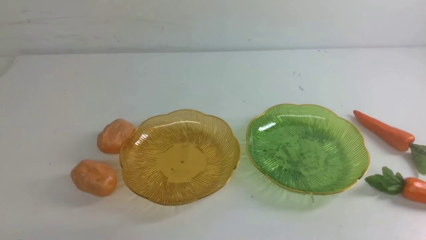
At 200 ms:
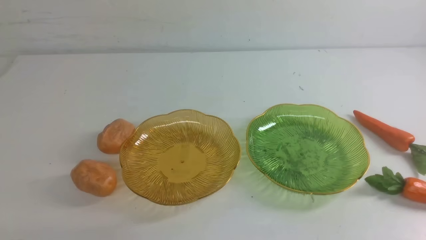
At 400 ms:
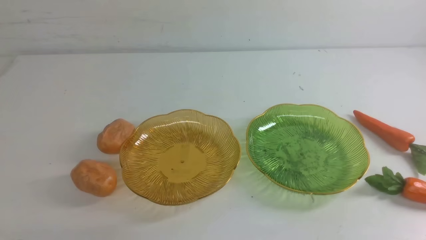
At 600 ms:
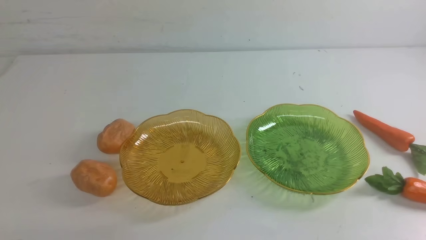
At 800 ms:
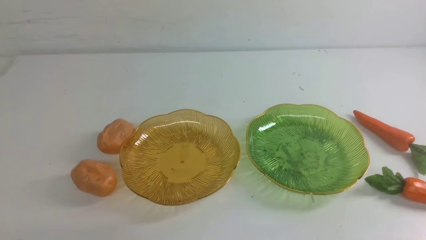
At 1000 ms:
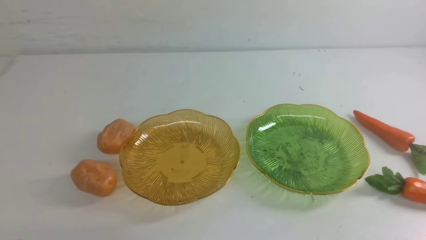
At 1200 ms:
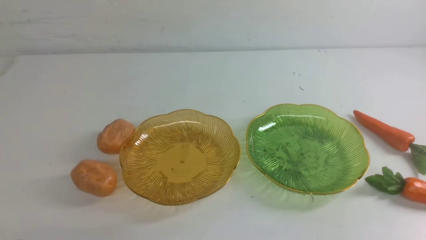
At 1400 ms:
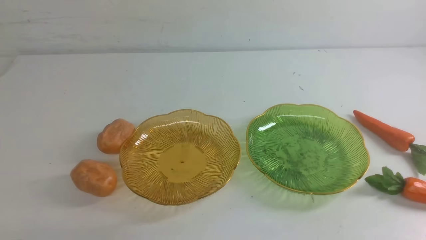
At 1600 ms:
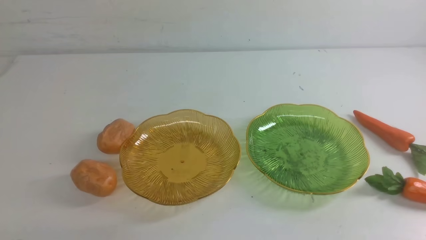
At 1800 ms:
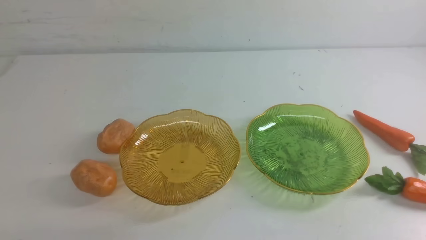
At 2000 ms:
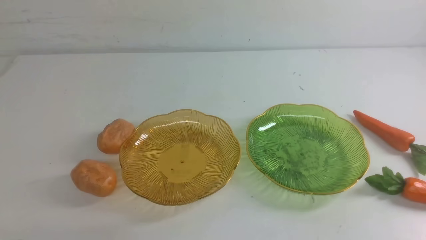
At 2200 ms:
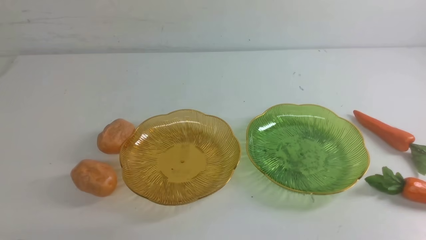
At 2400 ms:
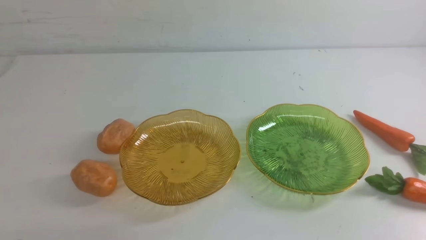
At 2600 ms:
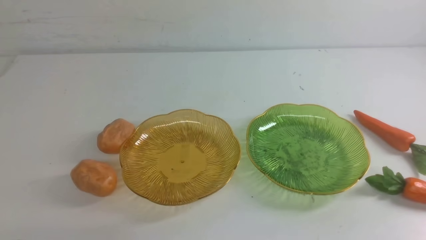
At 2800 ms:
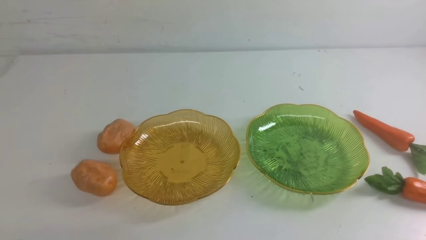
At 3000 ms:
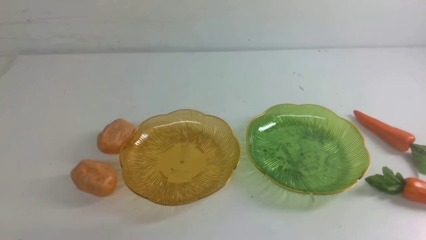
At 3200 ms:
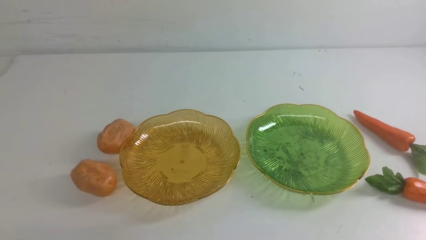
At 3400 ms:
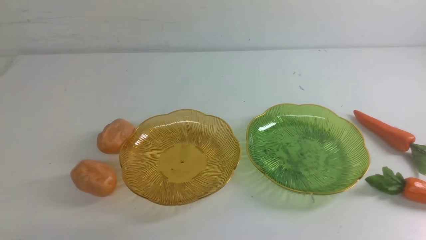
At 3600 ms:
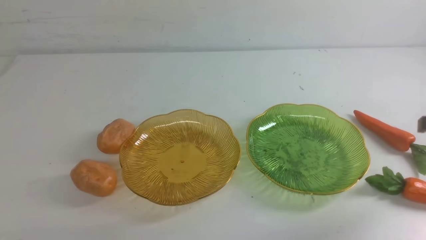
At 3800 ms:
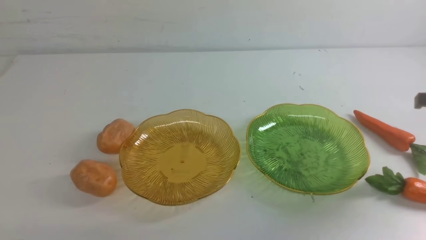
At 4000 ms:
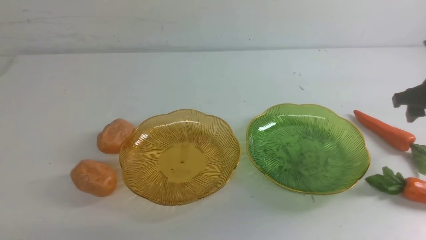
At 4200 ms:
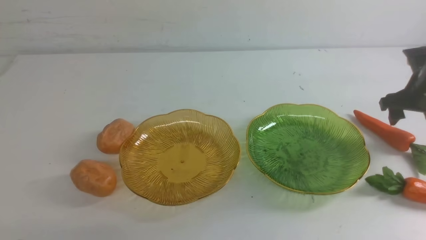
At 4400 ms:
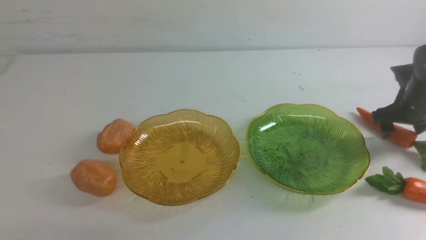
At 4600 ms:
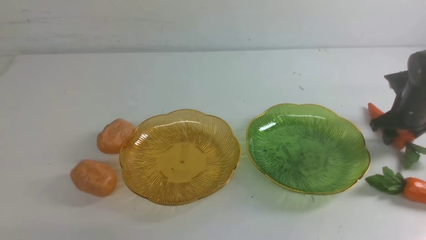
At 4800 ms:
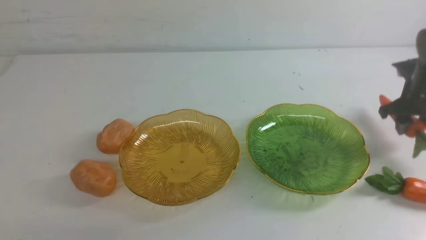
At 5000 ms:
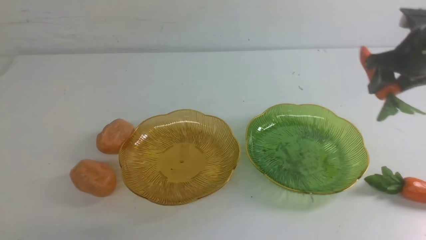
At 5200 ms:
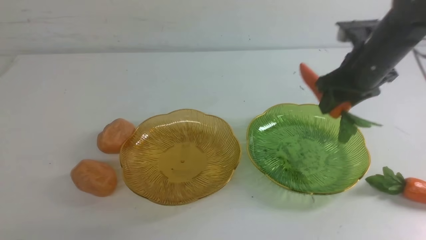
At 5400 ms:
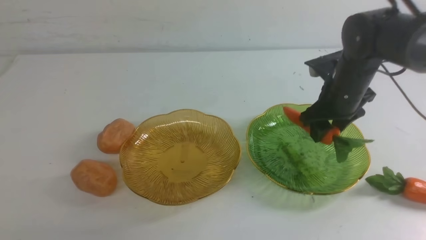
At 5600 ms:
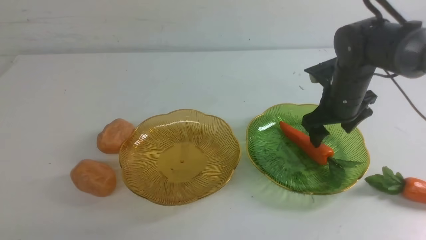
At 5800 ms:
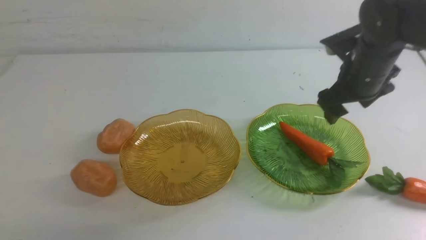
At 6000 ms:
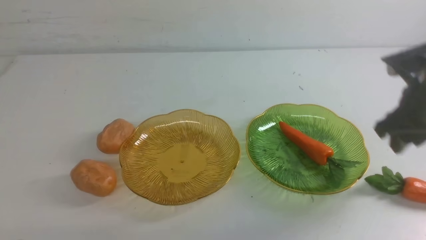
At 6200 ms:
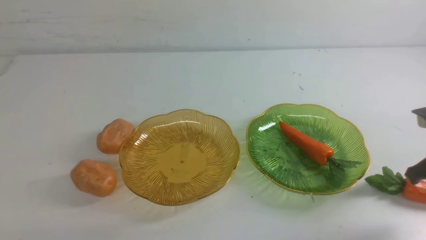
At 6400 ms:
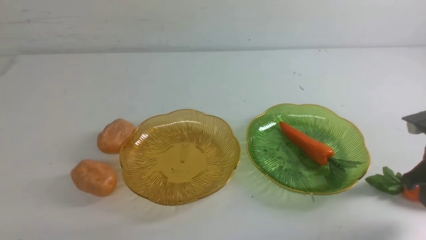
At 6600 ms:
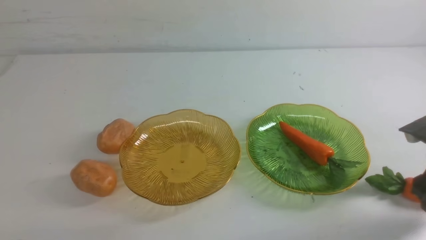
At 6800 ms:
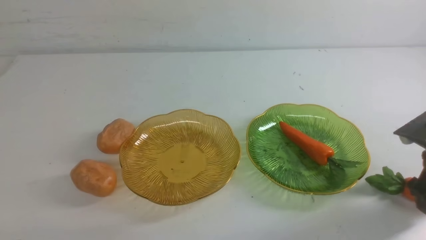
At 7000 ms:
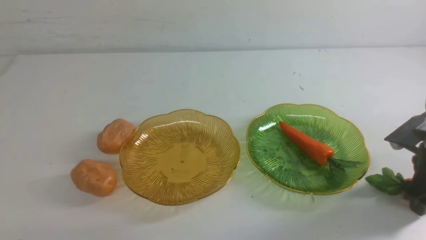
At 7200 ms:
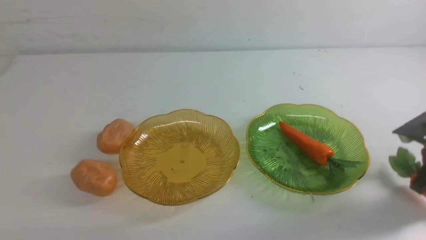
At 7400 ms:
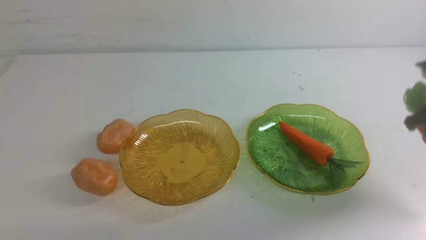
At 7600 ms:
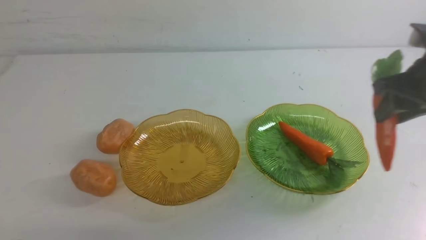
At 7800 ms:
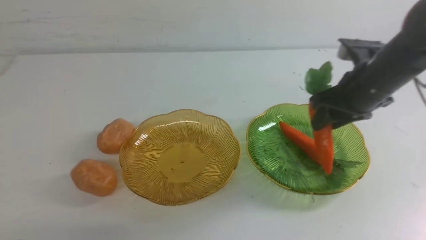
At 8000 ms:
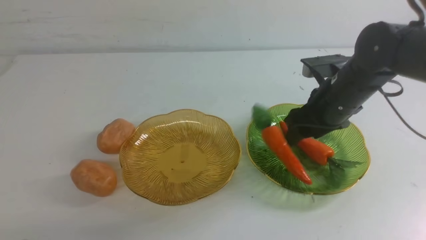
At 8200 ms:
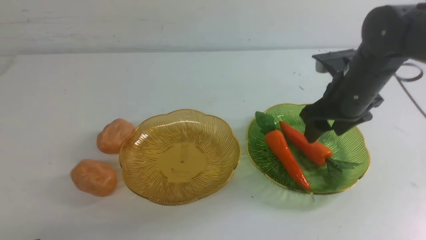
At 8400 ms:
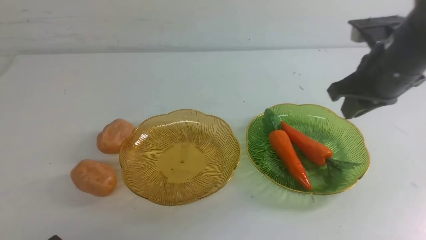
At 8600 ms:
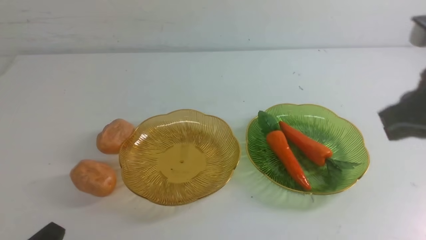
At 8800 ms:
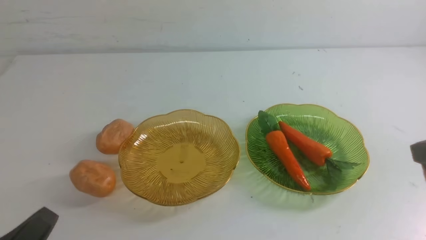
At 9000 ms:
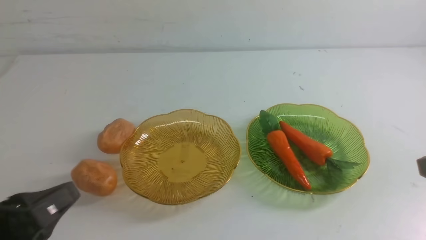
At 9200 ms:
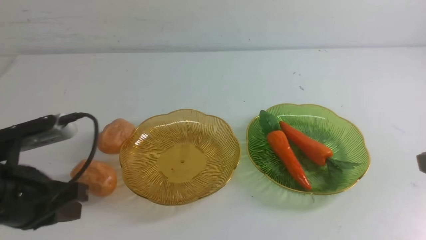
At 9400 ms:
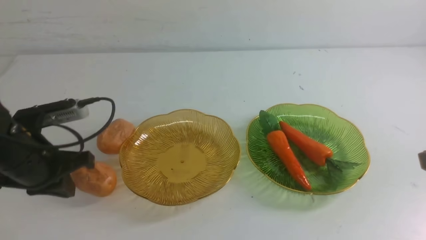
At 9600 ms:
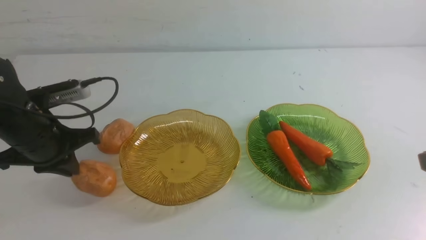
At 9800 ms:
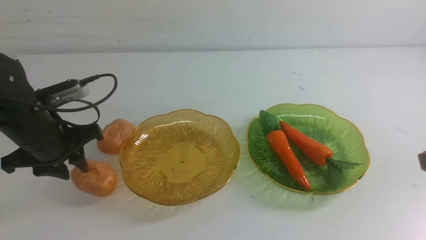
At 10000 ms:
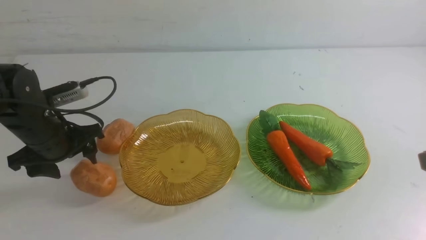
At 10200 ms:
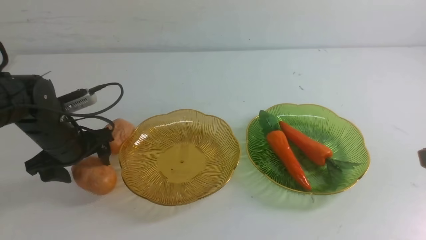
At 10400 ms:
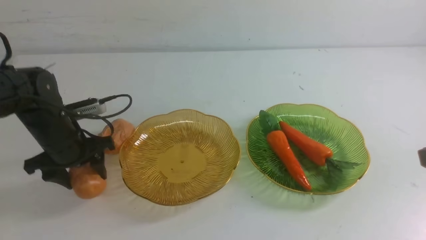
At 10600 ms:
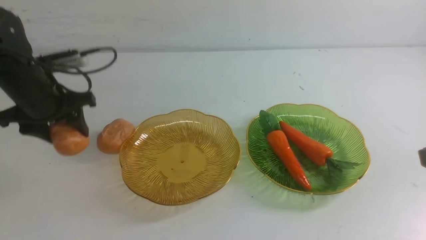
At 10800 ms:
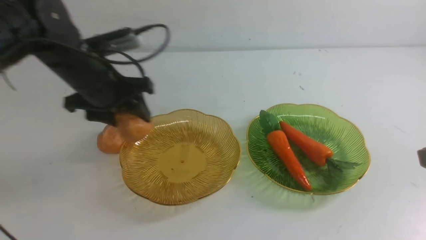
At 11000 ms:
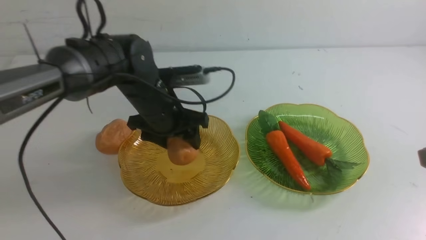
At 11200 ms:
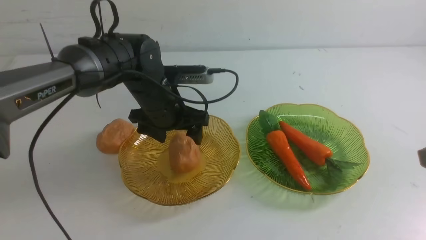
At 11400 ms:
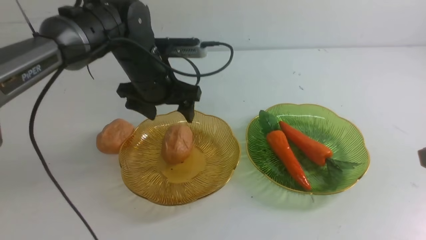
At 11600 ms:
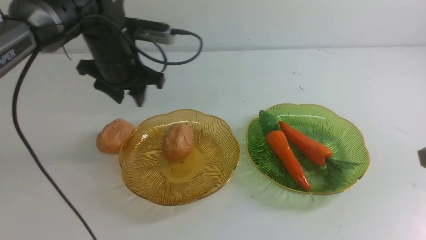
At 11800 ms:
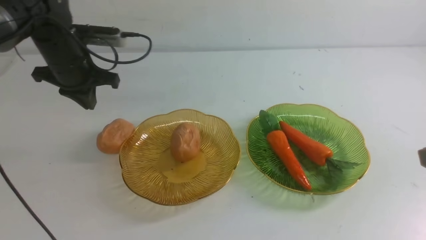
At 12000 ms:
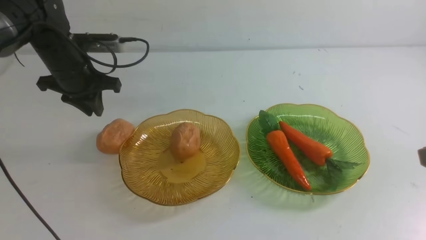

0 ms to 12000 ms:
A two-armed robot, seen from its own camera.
Step, 0 ms to 8200 ms: use the right arm to grab a carrot and put it into the right plate.
3000 ms to 4400 ms: The right gripper heads forward and downward, covering some 30 cm, and opens.
4400 ms to 6000 ms: The right gripper travels backward by approximately 15 cm, and closes up.
6000 ms to 7600 ms: The right gripper travels upward and forward by about 10 cm, and opens and closes again.
7600 ms to 9000 ms: The right gripper shifts roughly 20 cm backward, and closes up. Meanwhile the left gripper is displaced forward and upward by roughly 20 cm.
9000 ms to 10400 ms: The left gripper goes some 20 cm forward and to the right, and opens up.
10400 ms to 12000 ms: The left gripper is displaced to the left, forward and downward by roughly 15 cm, and closes, then opens again.

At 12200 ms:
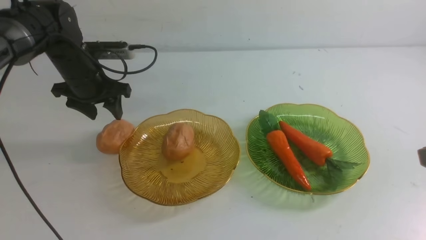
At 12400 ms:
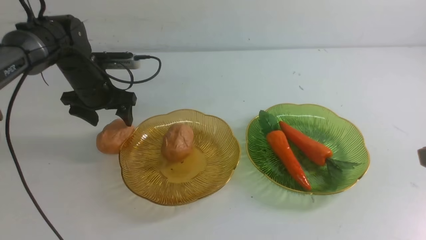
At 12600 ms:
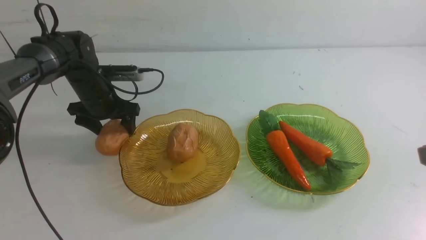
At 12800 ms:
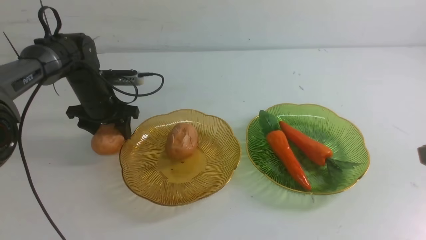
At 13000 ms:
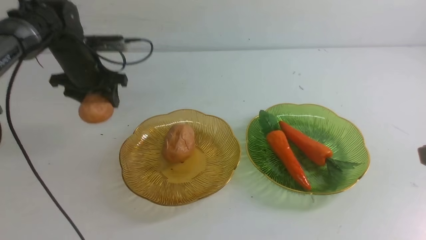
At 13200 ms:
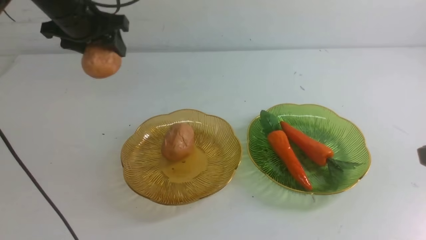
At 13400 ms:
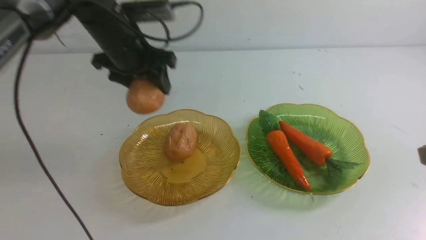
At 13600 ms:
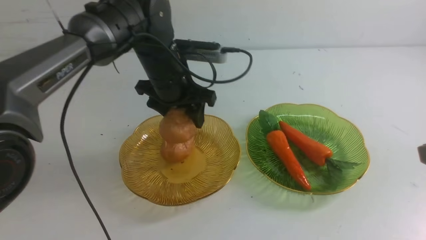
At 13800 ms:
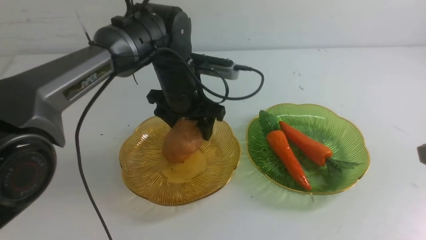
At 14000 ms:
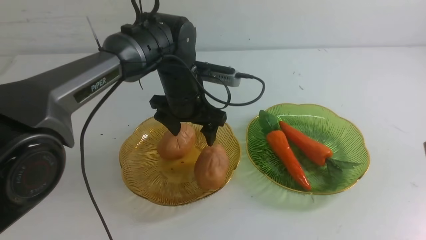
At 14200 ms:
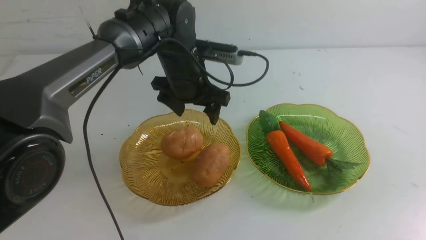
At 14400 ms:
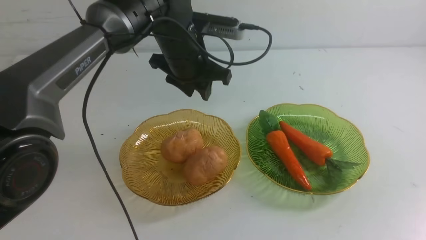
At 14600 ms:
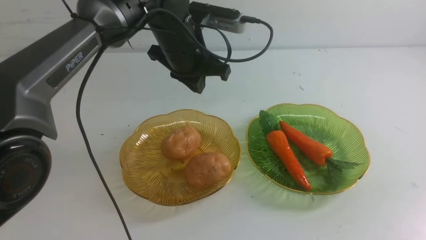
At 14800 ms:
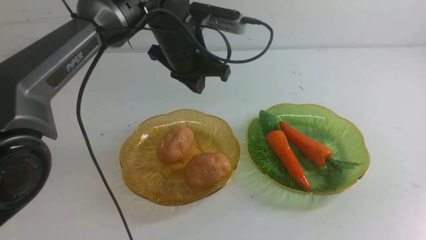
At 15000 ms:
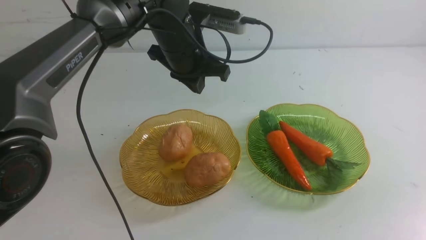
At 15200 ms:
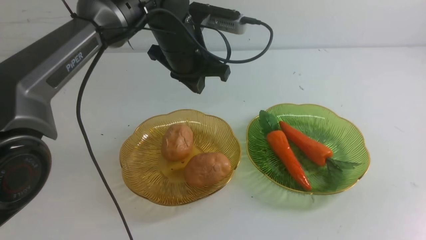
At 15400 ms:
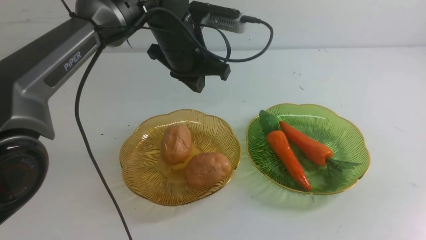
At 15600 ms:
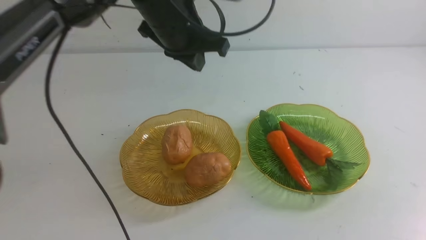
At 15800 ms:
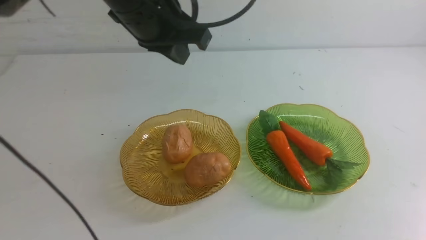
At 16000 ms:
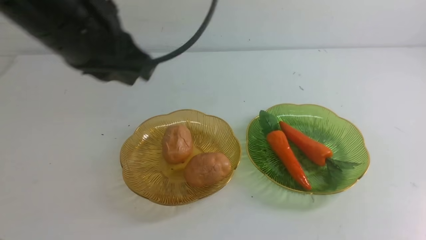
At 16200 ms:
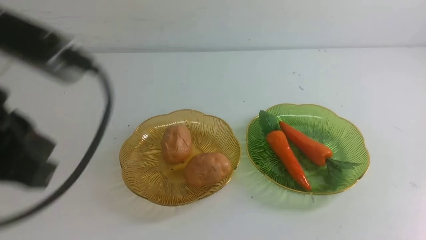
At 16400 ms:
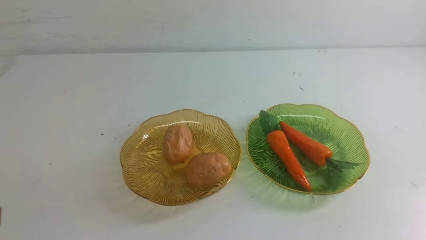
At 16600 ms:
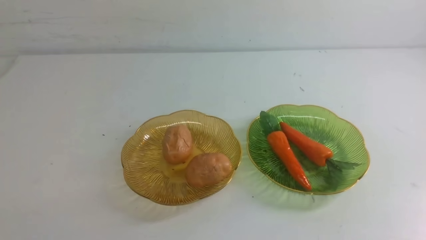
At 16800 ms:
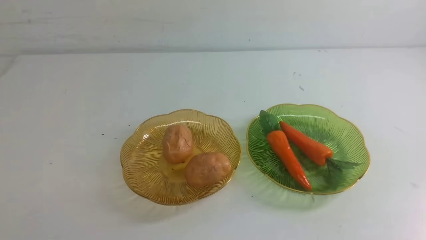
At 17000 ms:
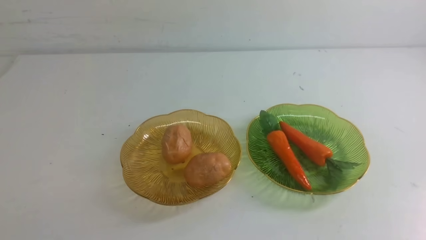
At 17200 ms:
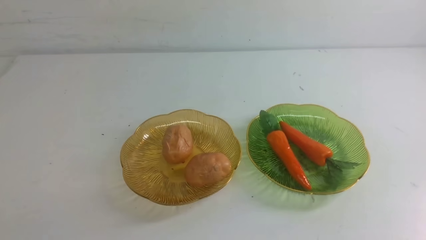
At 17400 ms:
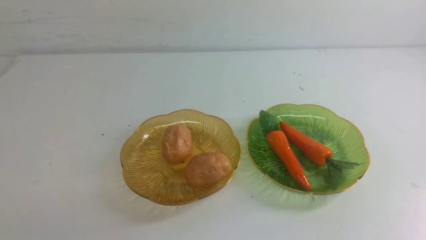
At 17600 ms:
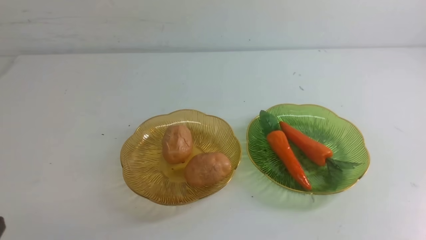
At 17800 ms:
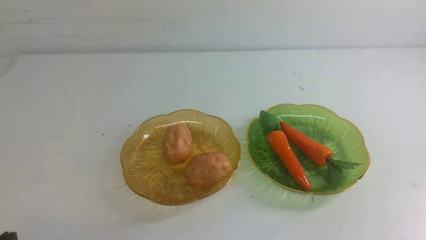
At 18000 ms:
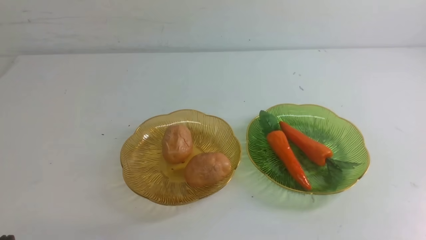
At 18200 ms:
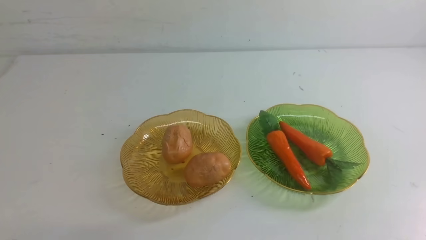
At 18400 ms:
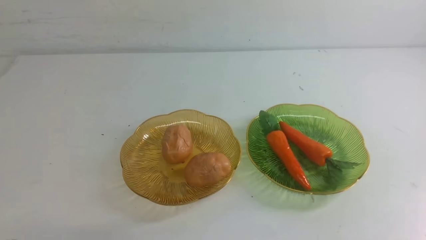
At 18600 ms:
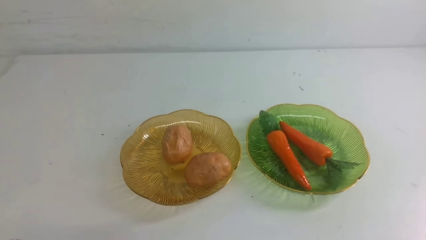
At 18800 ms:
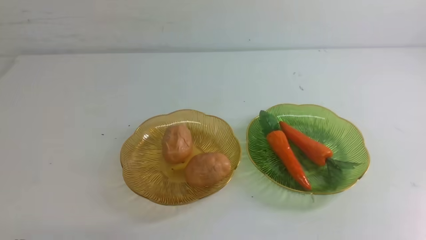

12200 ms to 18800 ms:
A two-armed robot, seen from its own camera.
12200 ms to 13800 ms: The right gripper moves backward, roughly 10 cm; the left gripper moves to the right and upward, about 20 cm, and closes its fingers.
13800 ms to 15400 ms: The right gripper moves downward, about 15 cm. The left gripper goes about 35 cm backward and to the left, and closes.
15400 ms to 17200 ms: The left gripper moves downward, some 20 cm.
17200 ms to 18800 ms: Neither gripper changes place.
